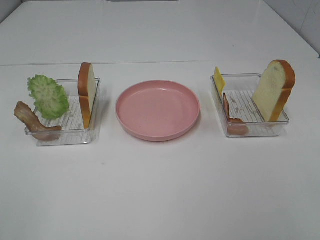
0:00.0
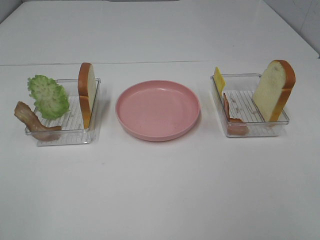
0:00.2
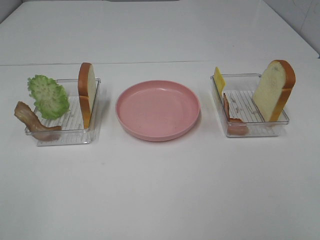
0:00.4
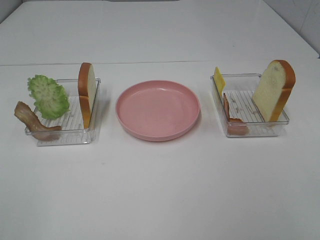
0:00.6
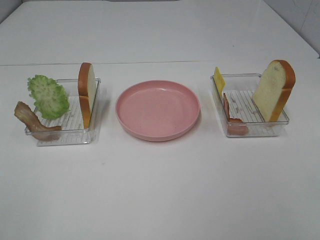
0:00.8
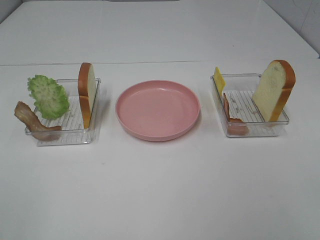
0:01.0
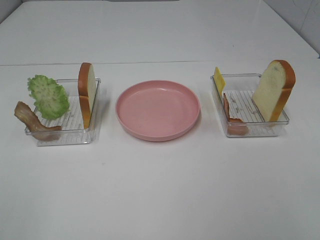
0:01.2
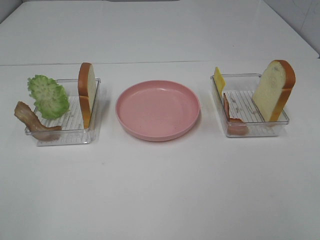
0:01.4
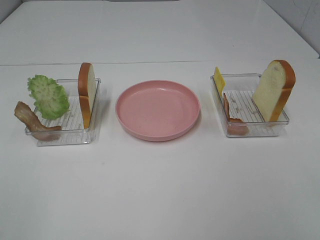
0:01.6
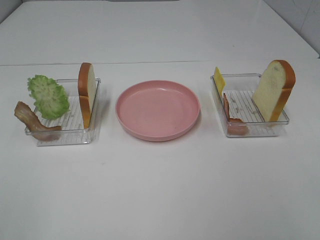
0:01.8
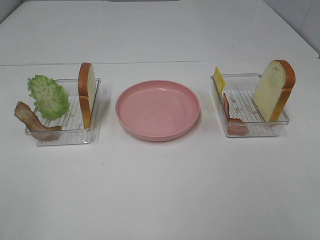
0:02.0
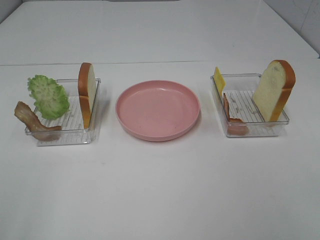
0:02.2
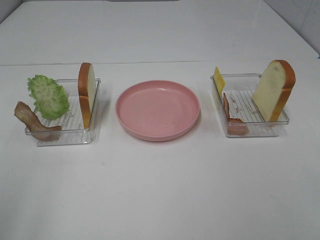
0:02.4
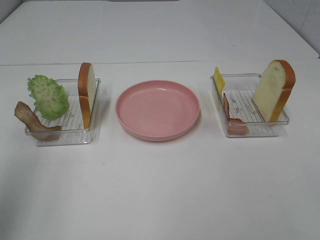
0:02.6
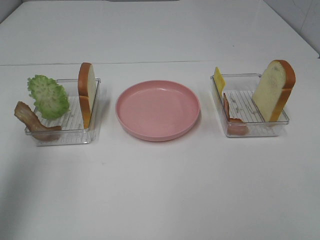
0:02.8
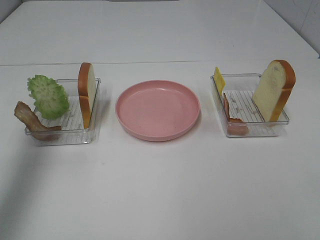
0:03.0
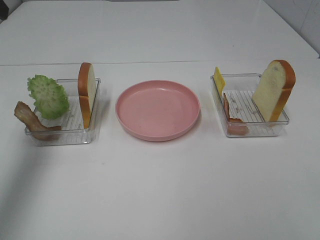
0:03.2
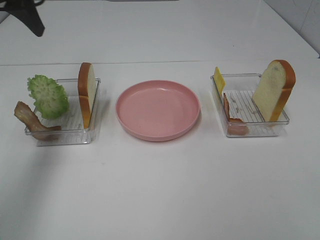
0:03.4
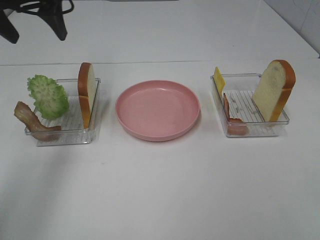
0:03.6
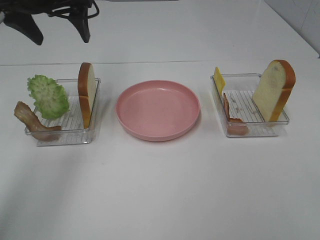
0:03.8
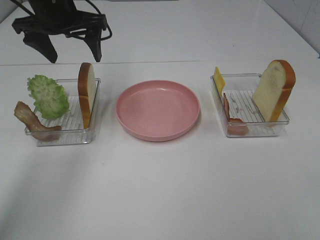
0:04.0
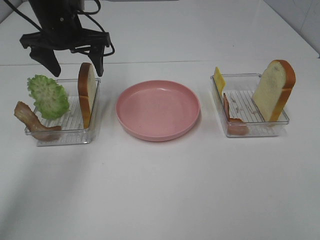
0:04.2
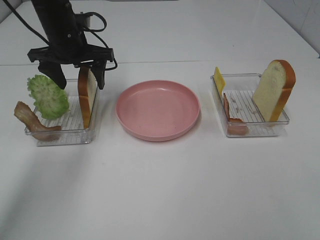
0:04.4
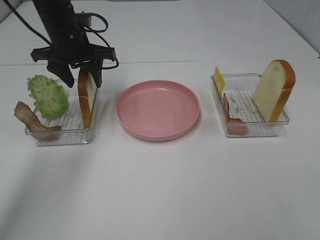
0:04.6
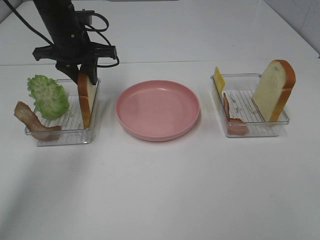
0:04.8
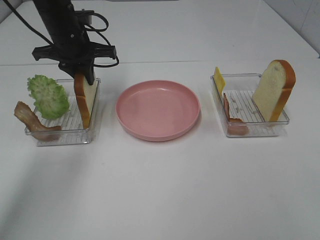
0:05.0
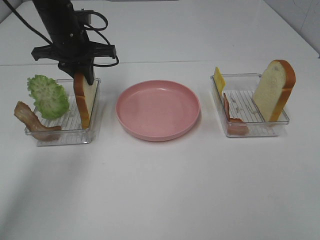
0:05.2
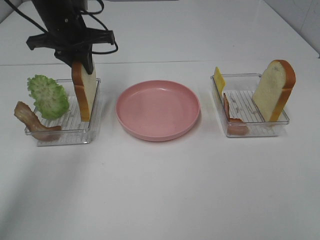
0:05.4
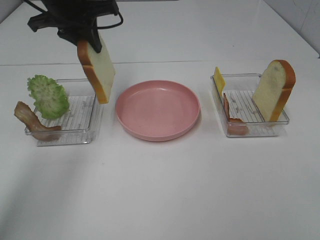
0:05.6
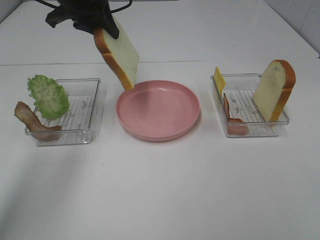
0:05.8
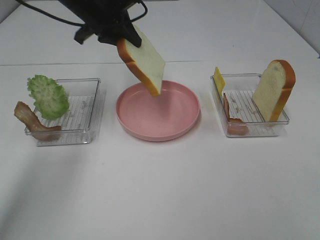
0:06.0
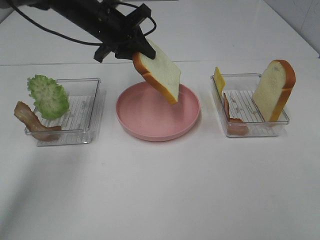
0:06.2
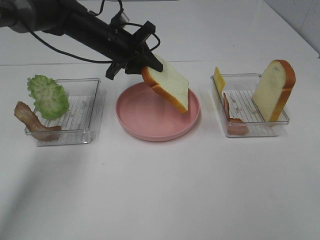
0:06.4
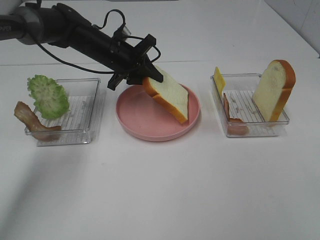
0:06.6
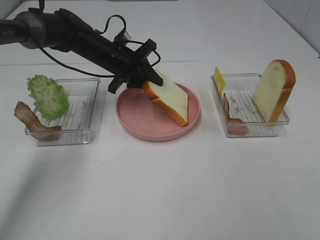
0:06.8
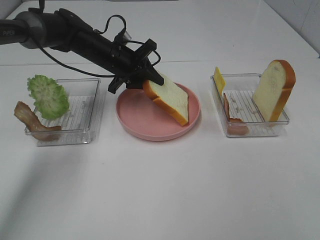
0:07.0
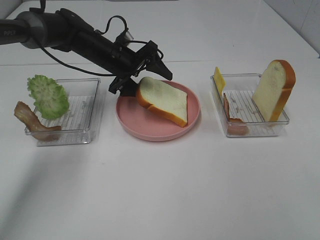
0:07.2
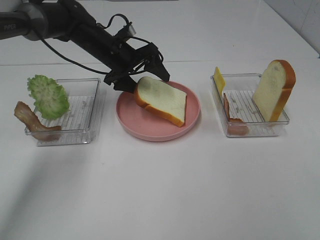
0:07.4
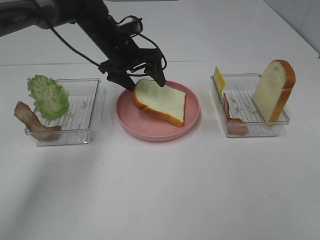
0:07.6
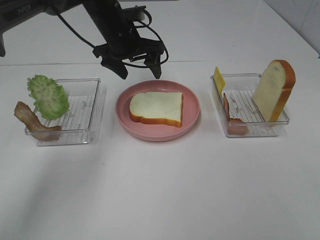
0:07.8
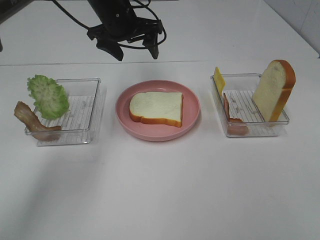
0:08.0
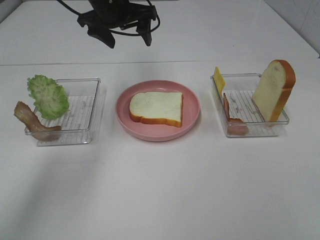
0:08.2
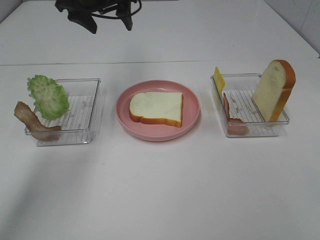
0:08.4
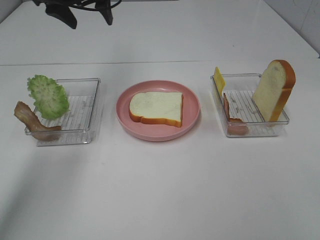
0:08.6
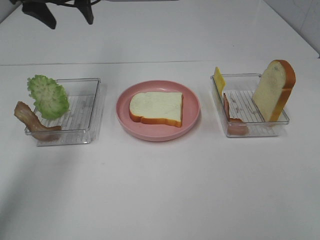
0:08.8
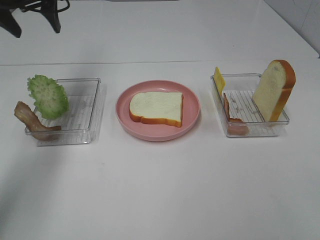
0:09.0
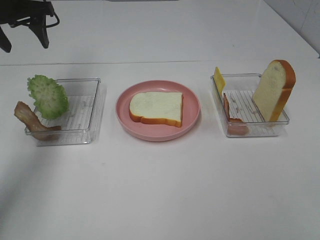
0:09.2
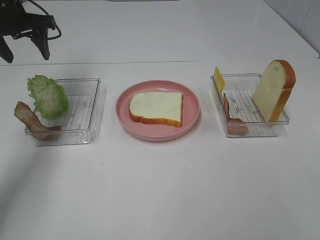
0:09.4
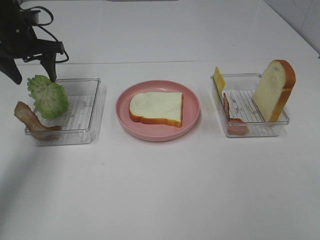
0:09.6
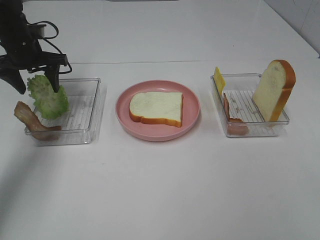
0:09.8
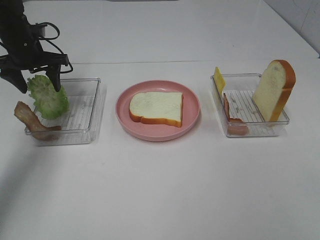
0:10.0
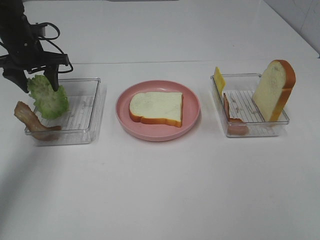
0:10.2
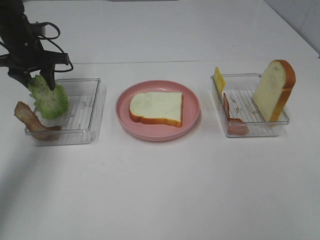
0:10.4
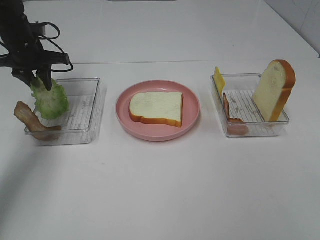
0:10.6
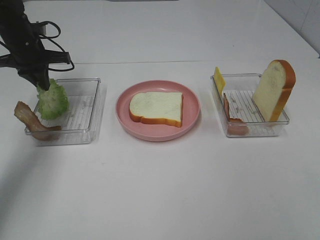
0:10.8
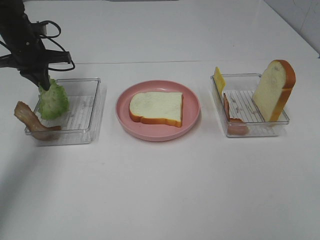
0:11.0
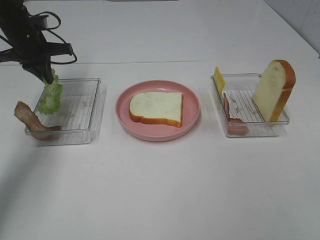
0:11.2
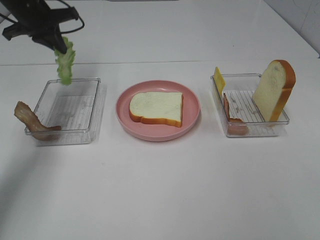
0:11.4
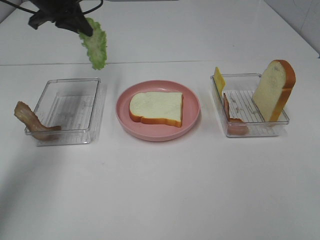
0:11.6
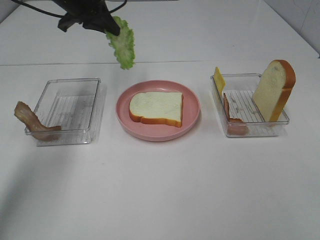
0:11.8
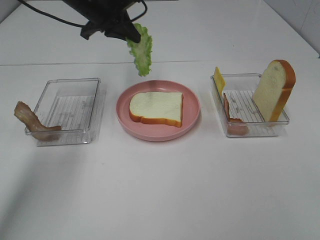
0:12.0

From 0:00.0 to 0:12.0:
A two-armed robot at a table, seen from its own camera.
Task of the whole recording: Make sandwiches.
Step, from 0:00.0 to 0:04.8: Left hand:grab the bread slice.
Step, from 0:05.0 to 0:07.8: Left hand:place the bread slice on the plate.
Step, from 0:08.0 to 0:10.8: Left hand:grab the lettuce slice.
From 0:00.0 to 0:01.6: Both grippers stay about where they are.
From 0:01.6 to 0:03.0: The left gripper is displaced forward by about 30 cm.
From 0:03.0 to 0:04.4: The left gripper shifts roughly 30 cm forward, downward and to the right.
From 0:04.4 to 0:06.0: The left gripper ends up roughly 5 cm from where it was, and closes up.
From 0:06.0 to 0:07.6: The left gripper is displaced downward by approximately 10 cm, and opens.
From 0:07.6 to 0:09.0: The left gripper travels to the left and upward by roughly 20 cm.
From 0:09.0 to 0:10.4: The left gripper goes some 15 cm downward.
From 0:10.4 to 0:12.0: The left gripper heads to the right and upward, covering approximately 15 cm, and closes its fingers.

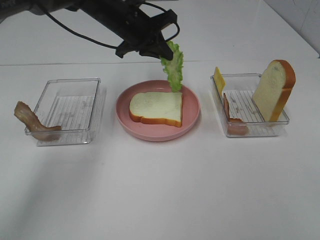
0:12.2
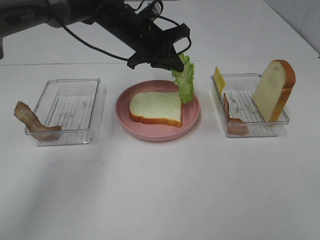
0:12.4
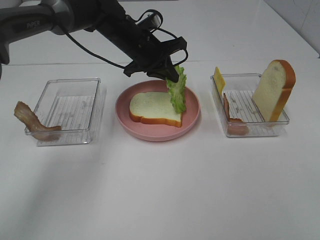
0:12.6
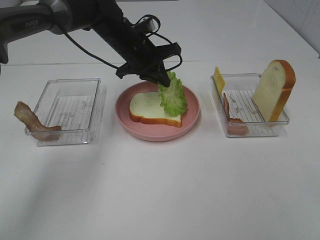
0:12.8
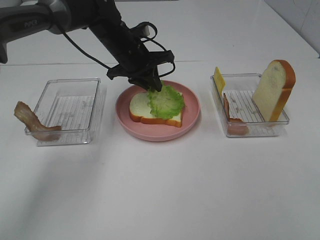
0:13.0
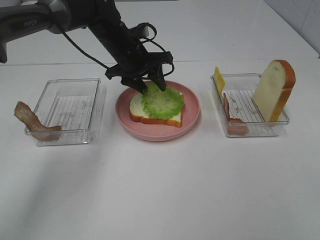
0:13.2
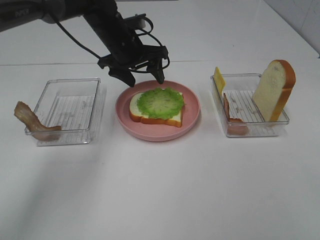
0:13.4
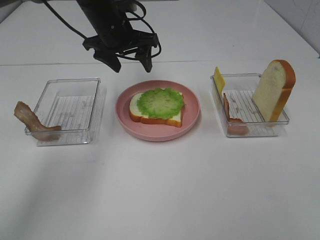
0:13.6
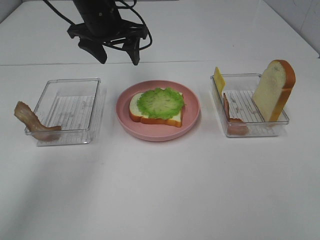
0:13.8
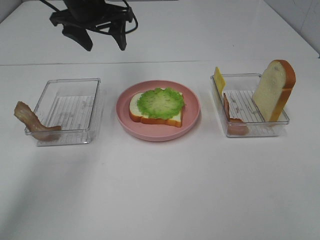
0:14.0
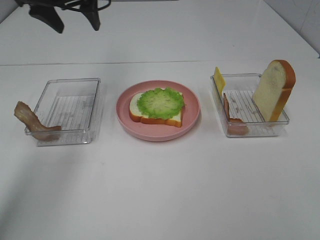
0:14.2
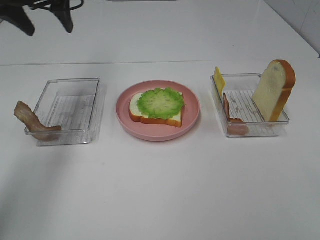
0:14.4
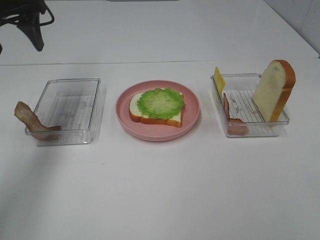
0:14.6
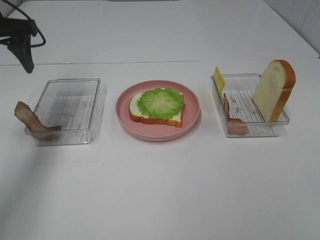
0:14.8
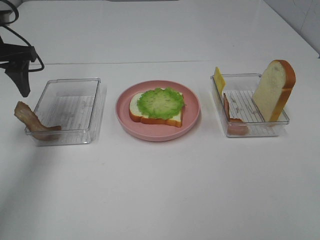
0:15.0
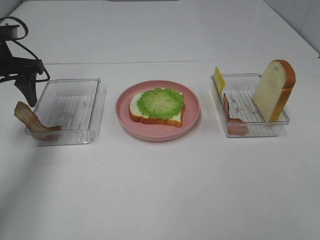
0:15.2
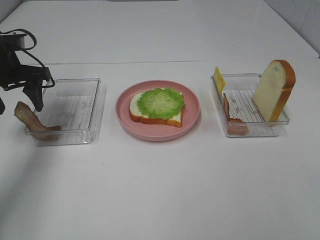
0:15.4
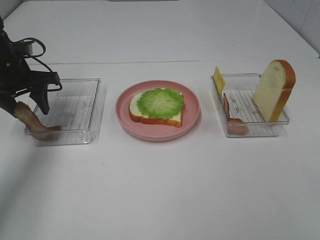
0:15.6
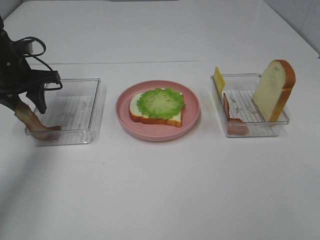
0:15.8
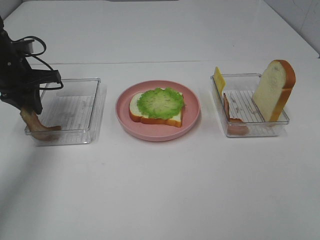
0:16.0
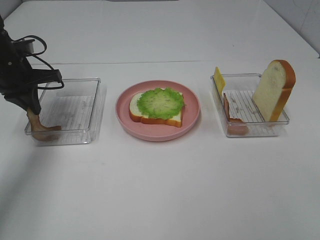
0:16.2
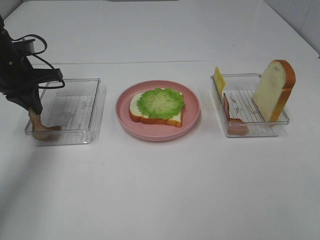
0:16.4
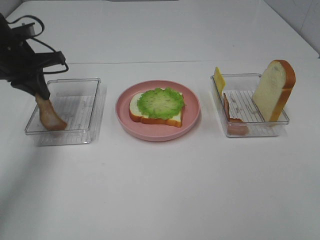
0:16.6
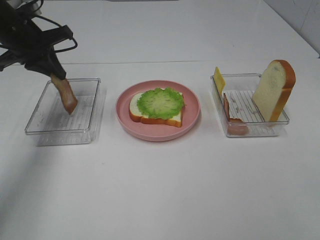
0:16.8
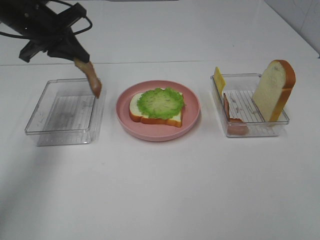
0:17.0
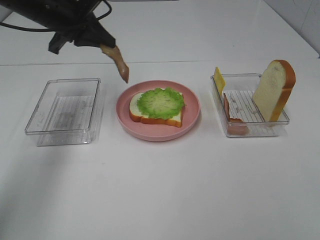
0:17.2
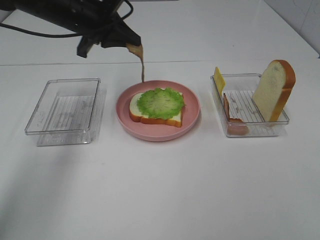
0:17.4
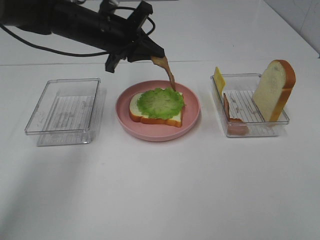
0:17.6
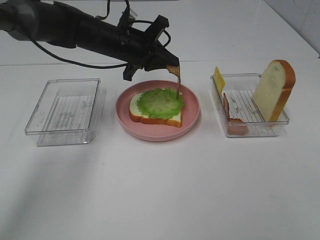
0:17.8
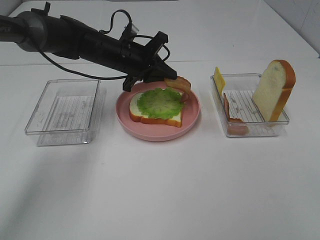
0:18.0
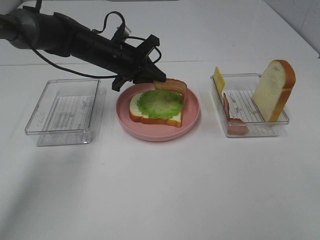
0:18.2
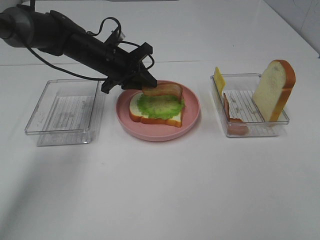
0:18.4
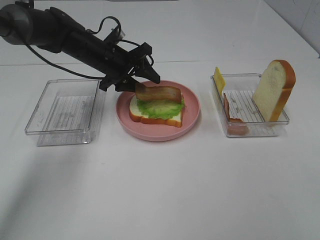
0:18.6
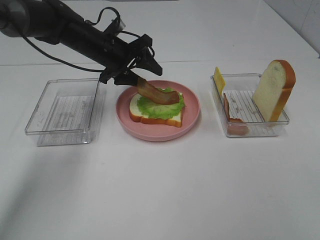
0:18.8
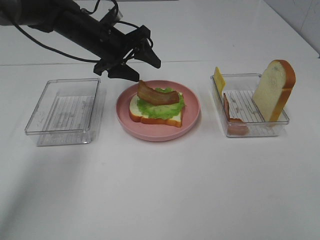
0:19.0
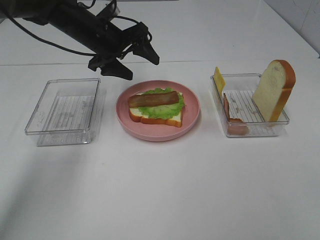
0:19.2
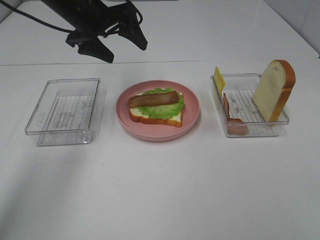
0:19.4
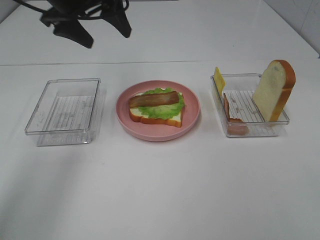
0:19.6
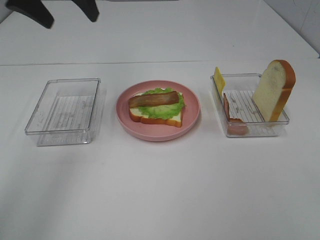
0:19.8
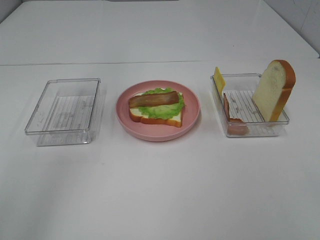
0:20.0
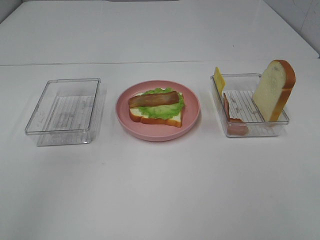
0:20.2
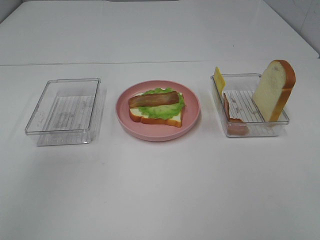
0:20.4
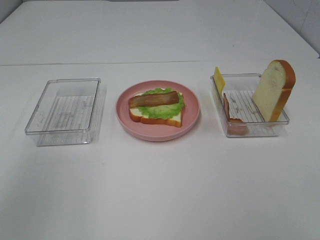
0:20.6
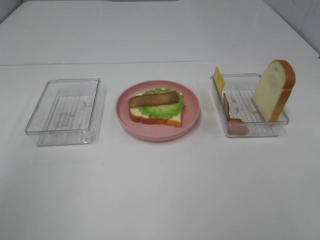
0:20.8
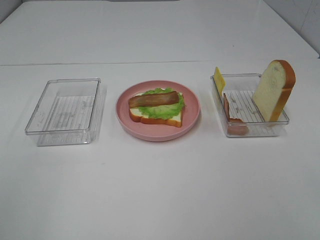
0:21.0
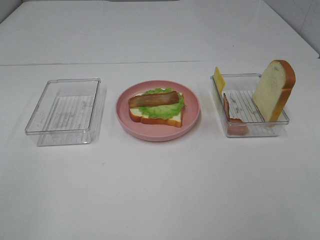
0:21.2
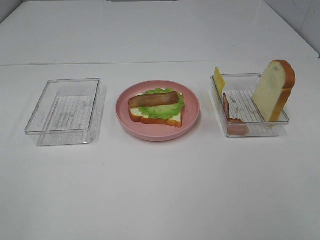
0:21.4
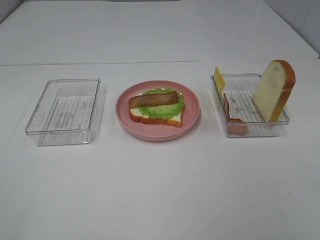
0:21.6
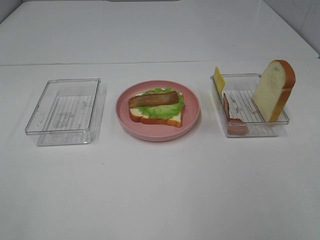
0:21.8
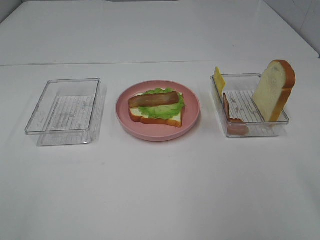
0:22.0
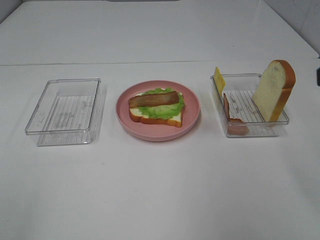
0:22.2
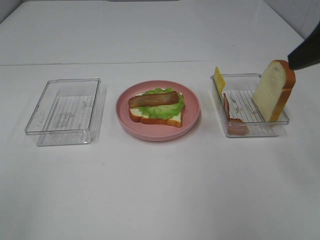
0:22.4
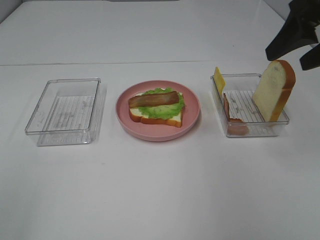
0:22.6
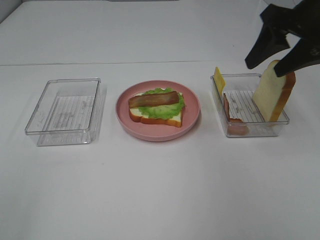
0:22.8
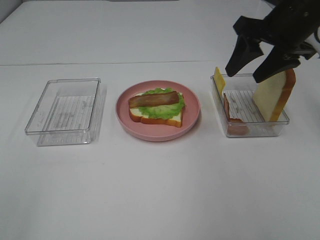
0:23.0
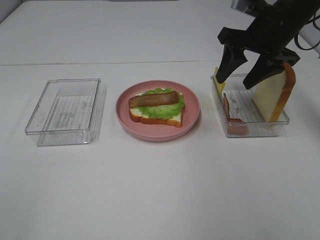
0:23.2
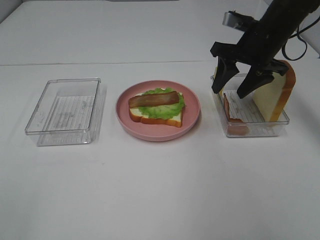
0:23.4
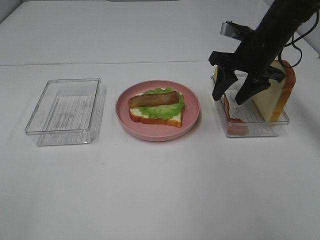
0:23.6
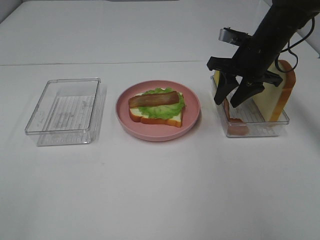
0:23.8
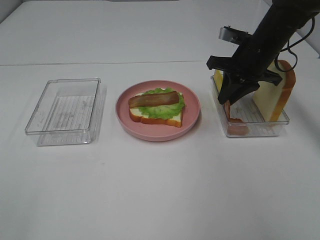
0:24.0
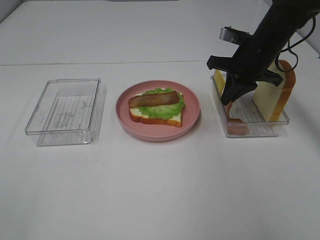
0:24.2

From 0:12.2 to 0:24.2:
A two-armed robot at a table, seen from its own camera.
Task of the whole recording: Make sandwiches.
Step, from 0:13.4 to 0:16.2: Left hand:grab the bacon.
Step, from 0:16.4 to 0:19.2: Left hand:place bacon on lettuce slice.
From 0:12.2 to 0:13.8: The left gripper moves approximately 5 cm, and opens its fingers.
From 0:13.8 to 0:15.2: The left gripper travels to the left and backward by about 20 cm.
From 0:15.2 to 0:16.6: The left gripper closes up.
From 0:16.6 to 0:18.2: The left gripper moves to the right, some 15 cm.
From 0:18.2 to 0:19.8: The left gripper is displaced upward by roughly 20 cm, and opens.
From 0:19.8 to 0:21.2: The left gripper travels backward by approximately 35 cm.
From 0:21.2 to 0:22.6: The right gripper travels forward by approximately 30 cm.
From 0:22.6 to 0:24.2: The right gripper moves downward, forward and to the left, approximately 20 cm, and closes its fingers.
